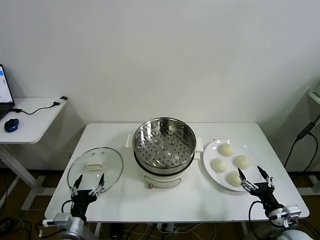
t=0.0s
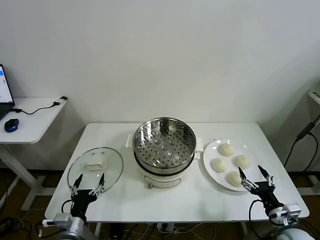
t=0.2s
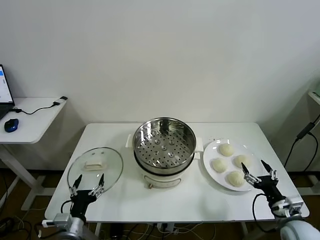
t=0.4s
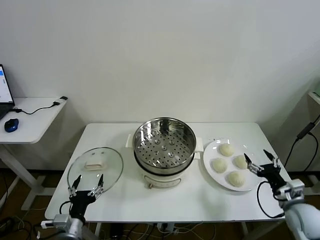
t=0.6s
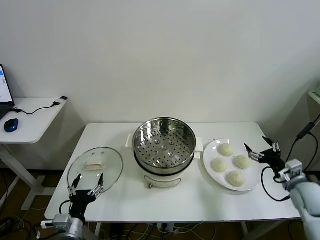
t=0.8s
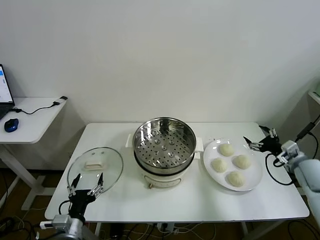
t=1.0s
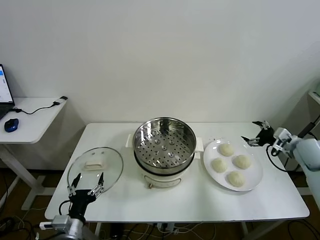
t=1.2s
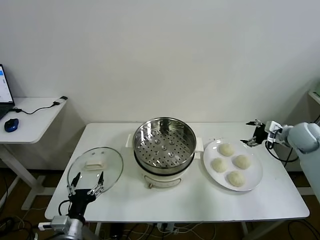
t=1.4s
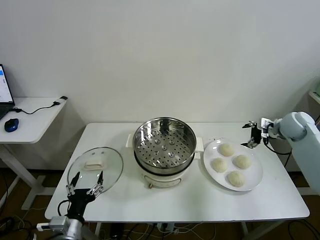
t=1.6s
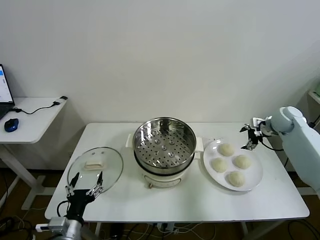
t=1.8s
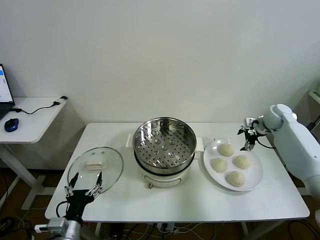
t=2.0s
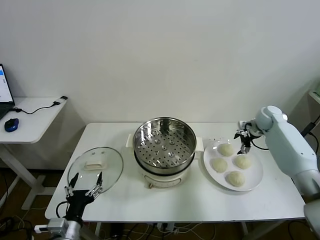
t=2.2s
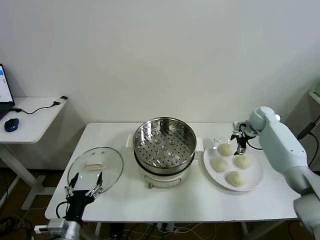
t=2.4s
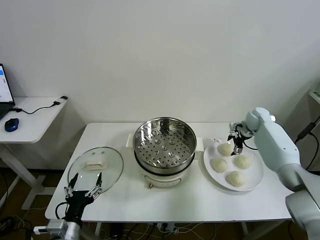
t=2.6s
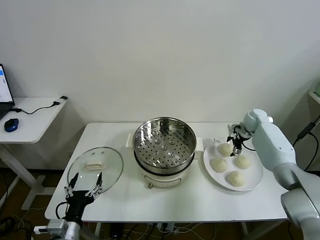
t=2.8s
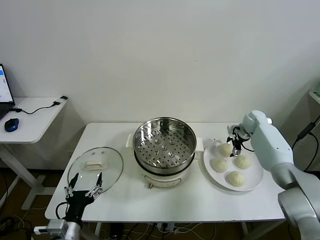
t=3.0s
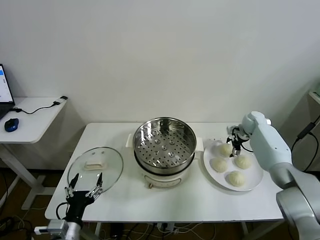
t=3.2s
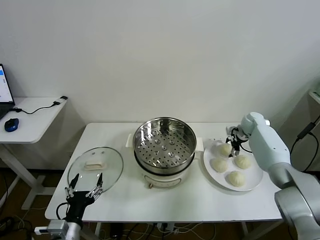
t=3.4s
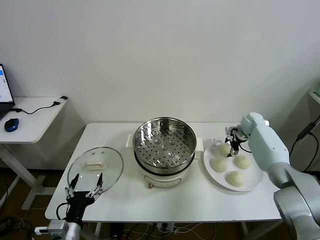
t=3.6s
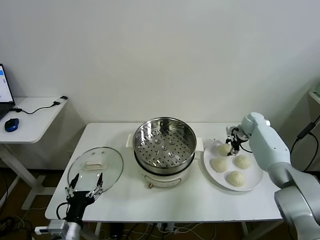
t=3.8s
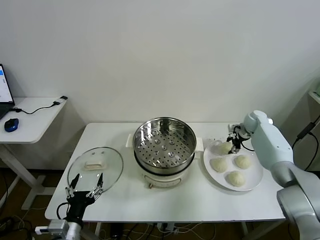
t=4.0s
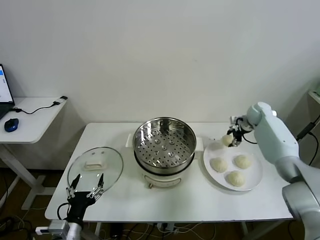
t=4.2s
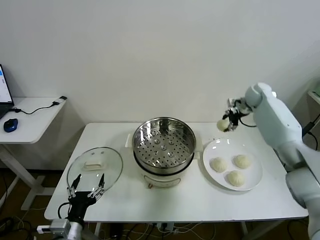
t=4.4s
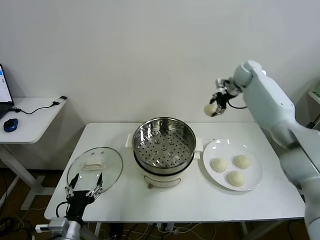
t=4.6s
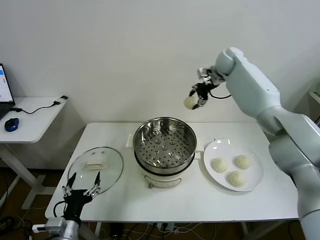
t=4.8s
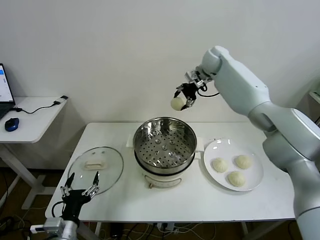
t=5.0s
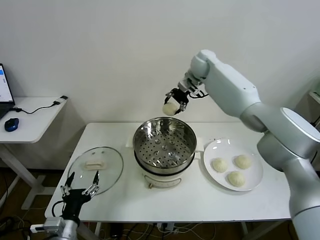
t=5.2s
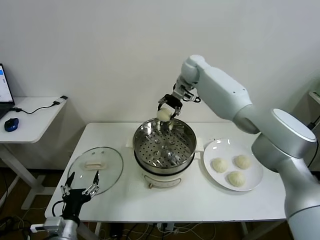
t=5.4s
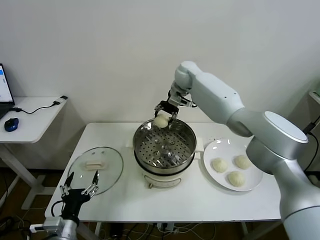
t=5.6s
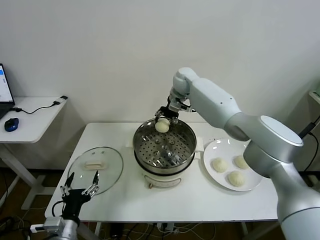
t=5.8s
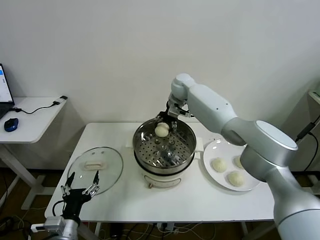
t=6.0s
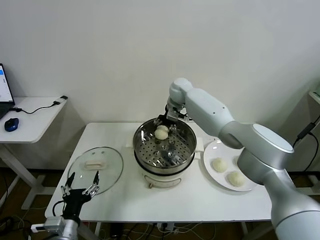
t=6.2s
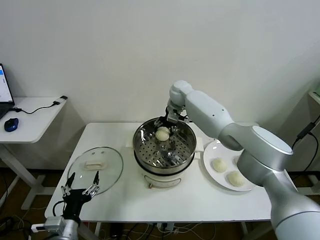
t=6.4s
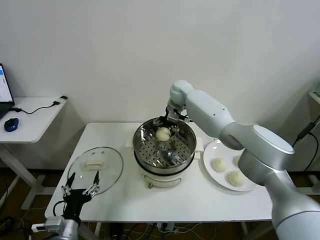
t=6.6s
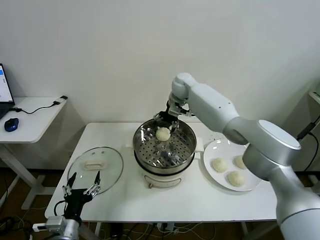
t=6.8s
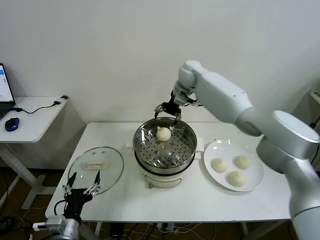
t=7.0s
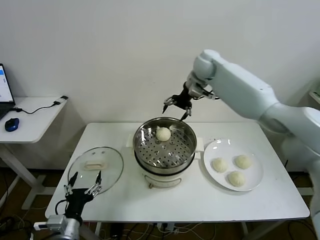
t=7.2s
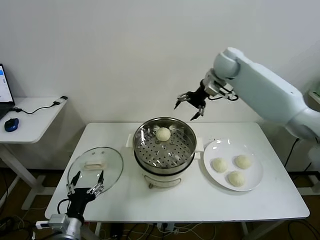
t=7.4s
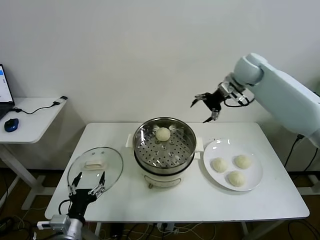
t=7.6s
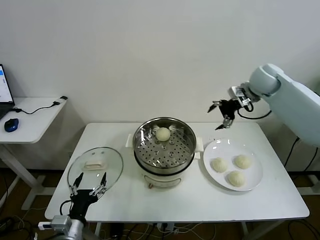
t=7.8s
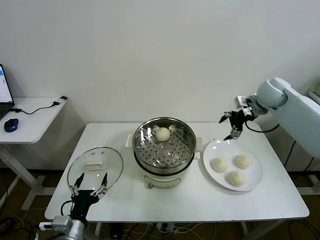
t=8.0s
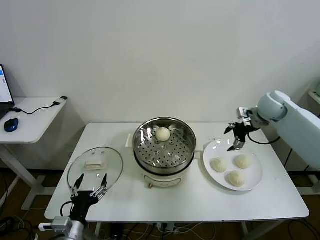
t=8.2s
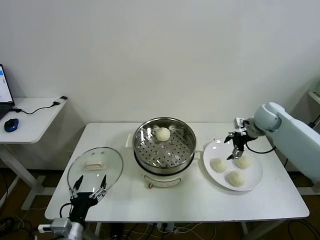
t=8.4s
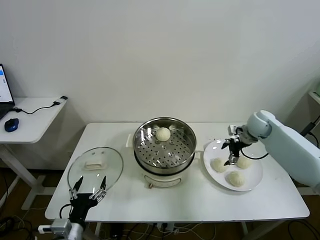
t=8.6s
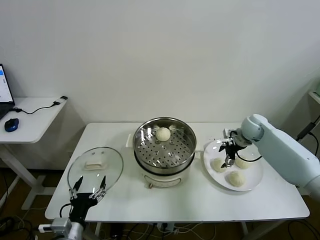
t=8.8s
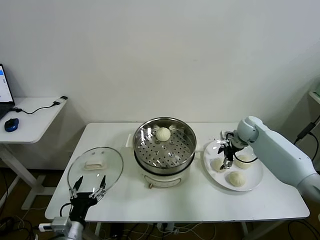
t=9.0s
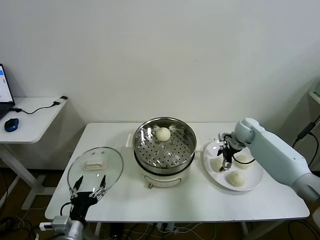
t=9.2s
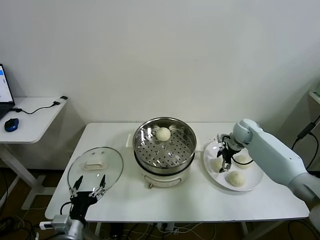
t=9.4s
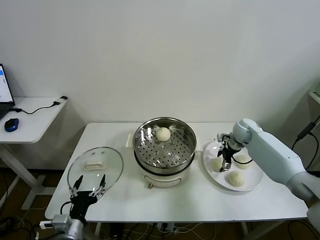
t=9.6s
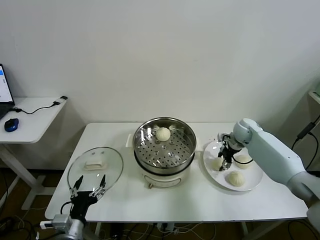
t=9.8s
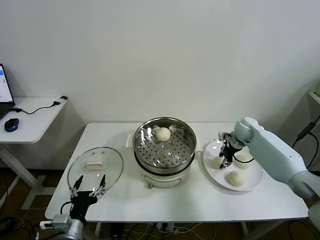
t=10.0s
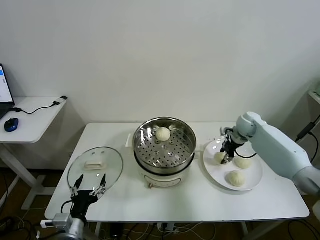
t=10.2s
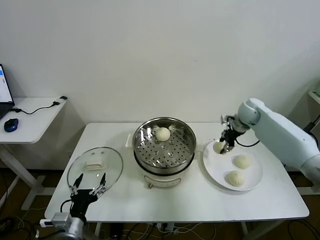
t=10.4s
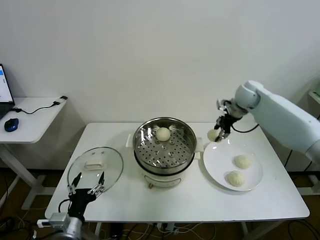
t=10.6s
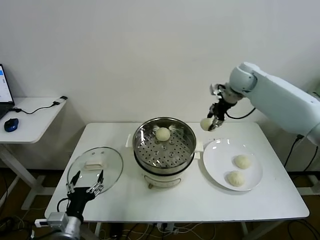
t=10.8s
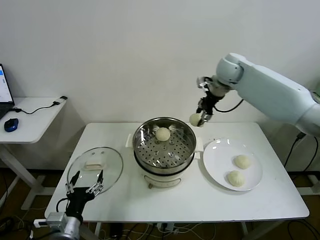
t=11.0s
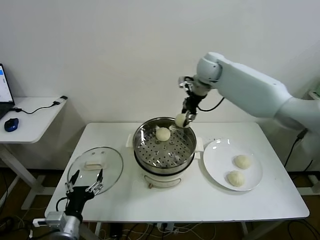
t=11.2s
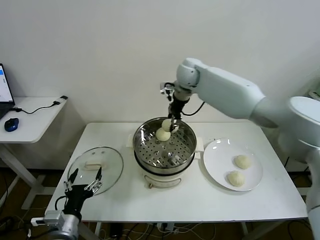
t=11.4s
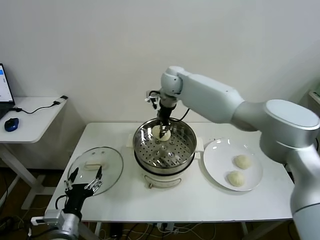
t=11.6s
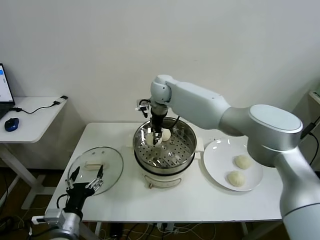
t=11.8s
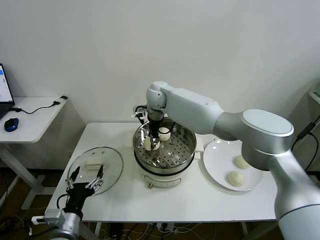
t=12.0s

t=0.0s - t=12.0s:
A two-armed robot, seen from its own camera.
Task of the whole recording: take steamed baozi put them in steamer then cover it.
Step, t=0.0s - t=3.8s: Grasp the baozi in the plate with right gripper.
Step, t=4.0s - t=6.8s: Place the baozi on the steamer with right gripper.
Step, t=7.0s - t=10.0s: Grasp the baozi in the plate with right gripper.
t=1.6s - t=3.0s: The right gripper shifts some 15 cm downward, forward and to the left.
t=3.0s - t=4.4s: The right gripper moves upward, roughly 20 cm, and closes up.
t=4.4s - t=6.0s: The right gripper travels to the left by about 25 cm.
t=6.0s - t=7.6s: The right gripper is displaced to the right and upward by some 25 cm, and opens up.
t=7.6s - t=9.0s: The right gripper is displaced downward by about 25 cm.
t=9.0s - t=10.4s: The right gripper travels upward by approximately 10 cm, and closes.
t=10.4s - t=12.0s: The right gripper shifts roughly 35 cm to the left.

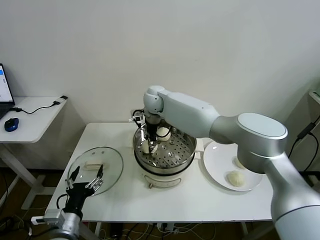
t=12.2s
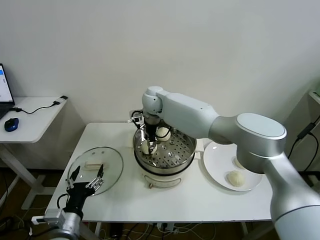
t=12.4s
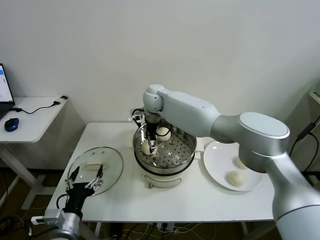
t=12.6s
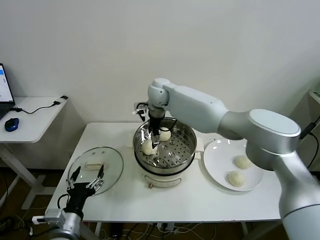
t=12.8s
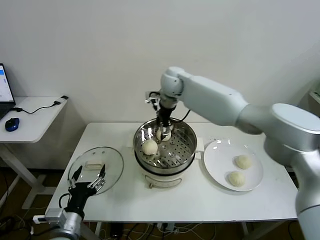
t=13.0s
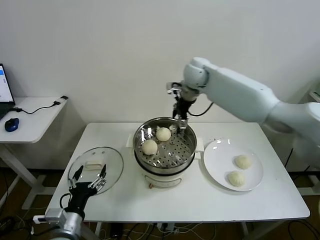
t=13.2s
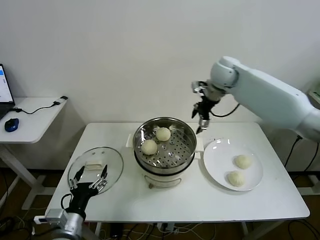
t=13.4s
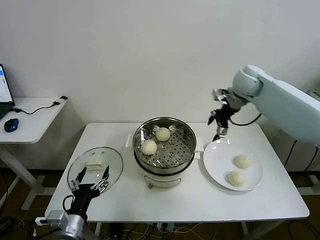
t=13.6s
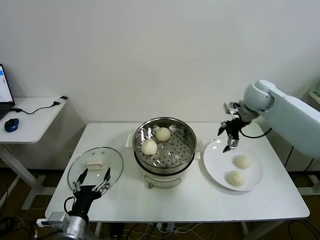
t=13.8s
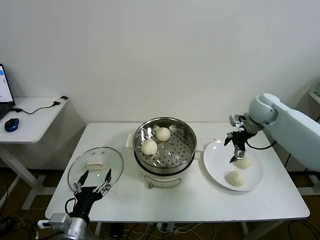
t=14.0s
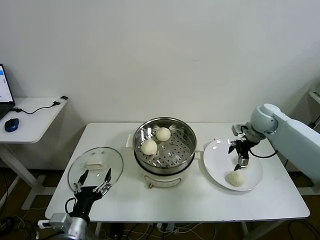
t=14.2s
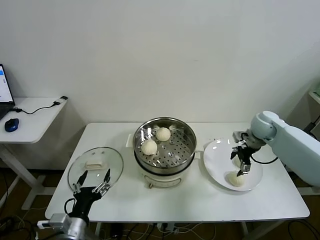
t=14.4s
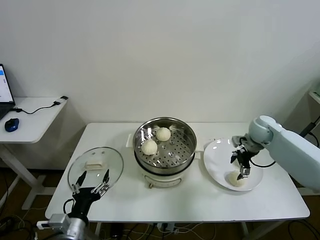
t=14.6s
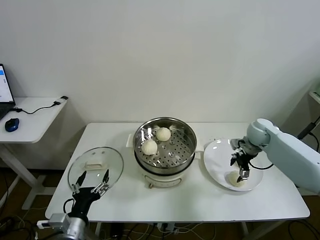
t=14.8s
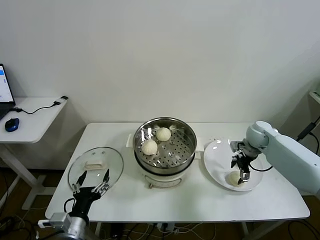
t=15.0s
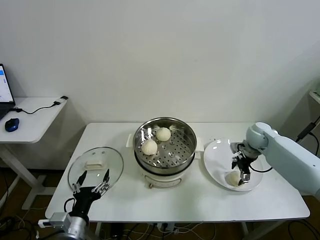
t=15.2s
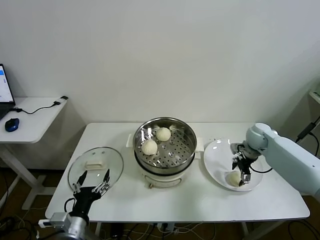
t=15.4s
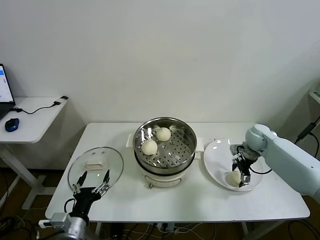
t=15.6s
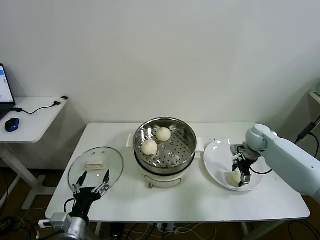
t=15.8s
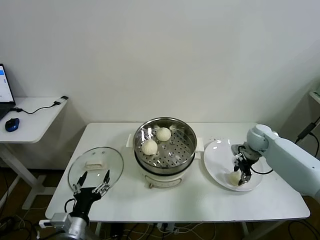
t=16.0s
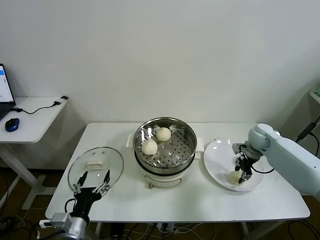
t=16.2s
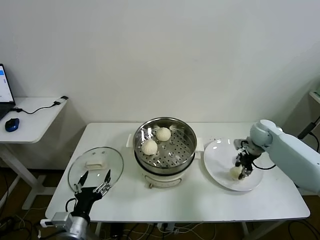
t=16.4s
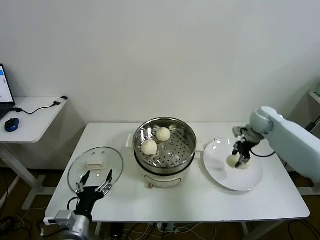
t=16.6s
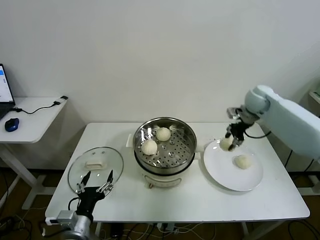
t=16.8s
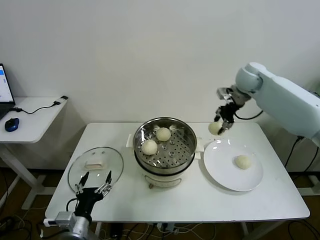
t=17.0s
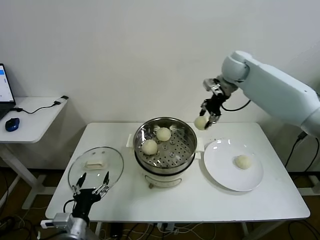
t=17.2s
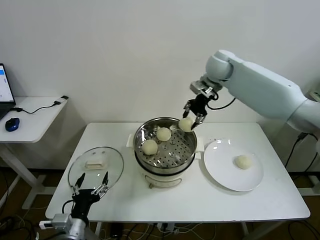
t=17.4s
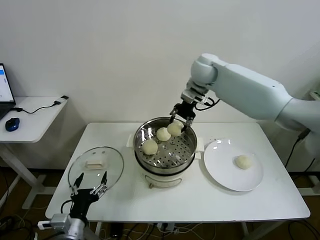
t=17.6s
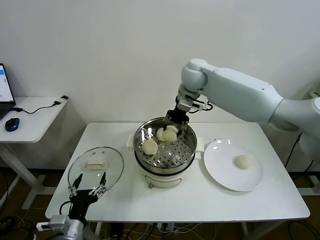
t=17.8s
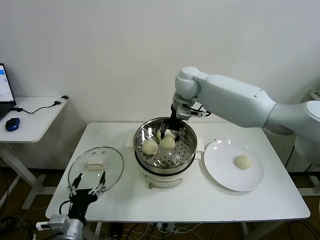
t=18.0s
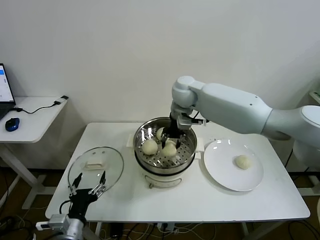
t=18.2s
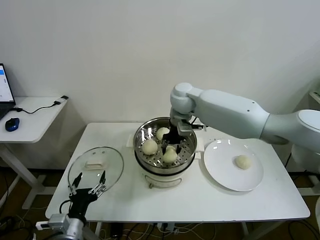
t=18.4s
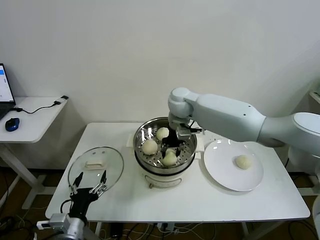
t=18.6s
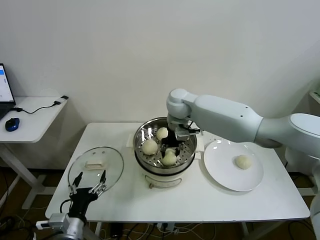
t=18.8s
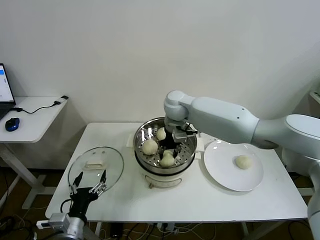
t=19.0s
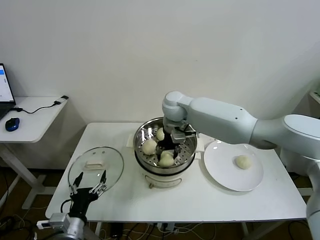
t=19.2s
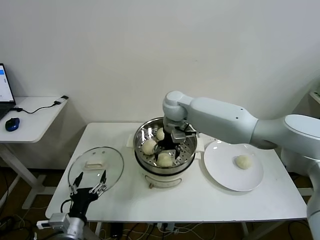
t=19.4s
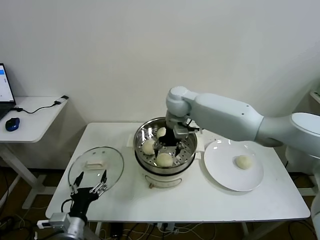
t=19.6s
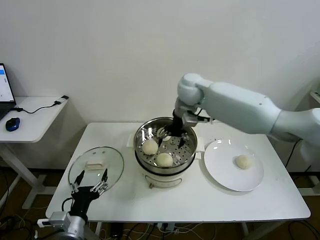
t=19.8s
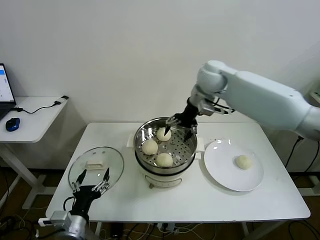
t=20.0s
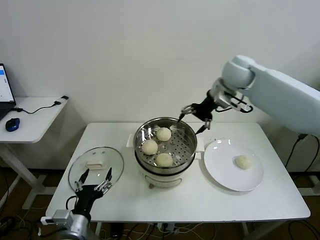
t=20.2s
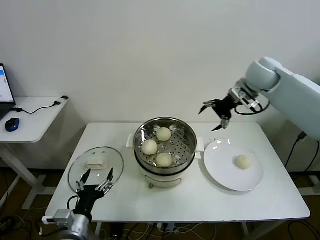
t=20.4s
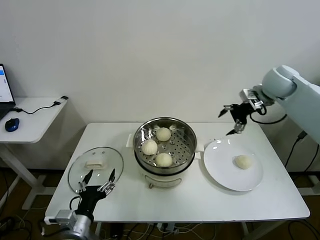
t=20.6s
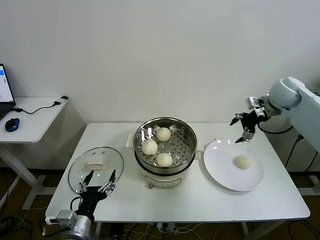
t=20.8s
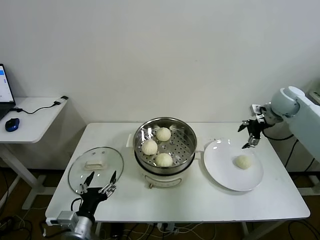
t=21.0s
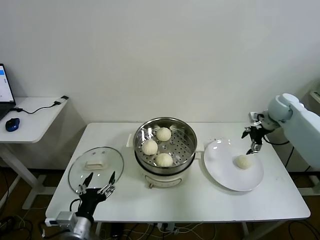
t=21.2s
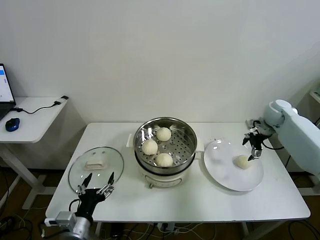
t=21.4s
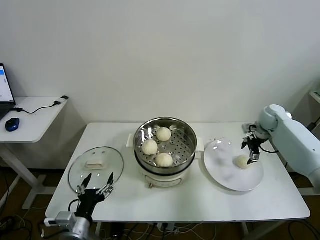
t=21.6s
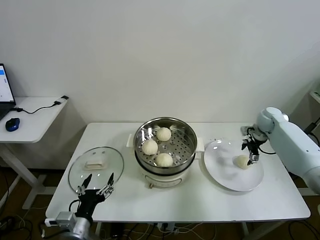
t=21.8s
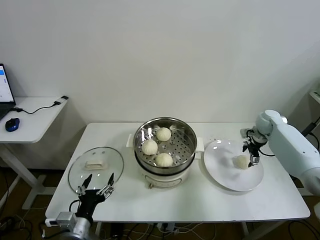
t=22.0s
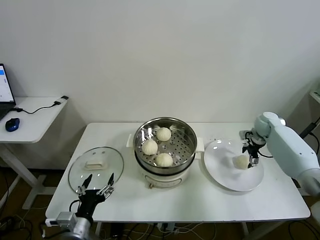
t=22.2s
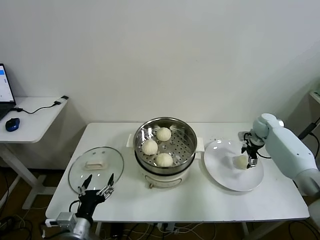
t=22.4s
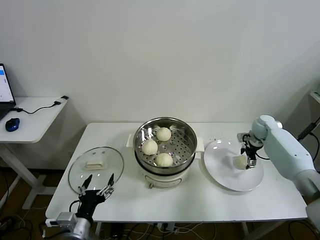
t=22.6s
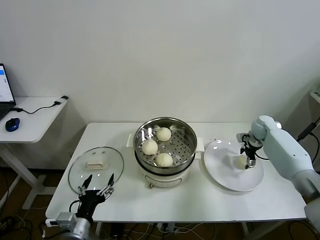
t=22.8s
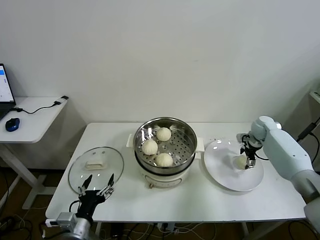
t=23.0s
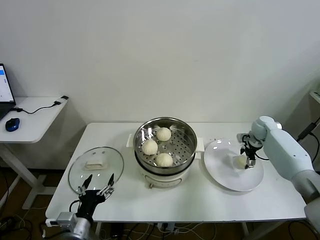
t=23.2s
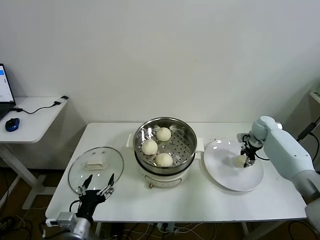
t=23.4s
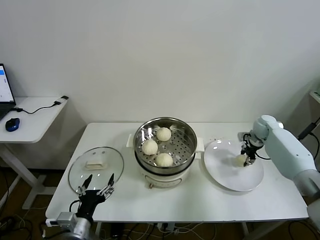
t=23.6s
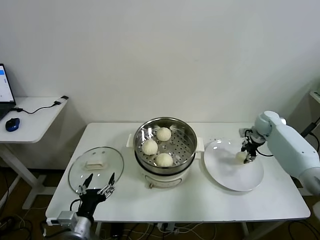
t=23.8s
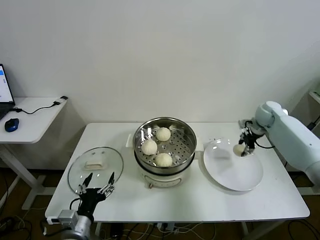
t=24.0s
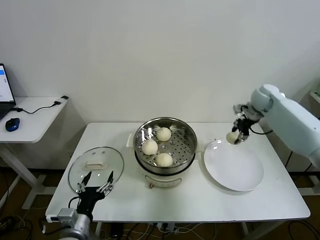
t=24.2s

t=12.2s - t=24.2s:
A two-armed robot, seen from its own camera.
Task of the whole recording: take steamed baozi put them in steamer then cover it.
Step, t=13.0s - t=16.2s: Grasp the baozi in the plate with right gripper.
Step, t=16.6s - t=19.6s: Place the baozi on the steamer with right gripper.
Step, t=19.8s - t=23.4s: Grasp the baozi in the plate with right gripper.
t=12.2s - t=13.8s: The right gripper goes about 35 cm to the right, and opens its fingers.
t=13.8s - t=15.2s: The right gripper shifts about 15 cm downward.
t=15.2s - t=16.6s: The right gripper shifts roughly 10 cm upward, and closes its fingers.
t=16.6s - t=18.2s: The right gripper travels to the left by roughly 30 cm.
t=18.2s - t=19.8s: The right gripper opens.
t=19.8s - t=21.2s: The right gripper moves to the right, some 35 cm.
t=21.2s - t=22.6s: The right gripper travels downward by approximately 10 cm.
t=22.6s - t=24.2s: The right gripper moves upward, approximately 15 cm, and closes.
